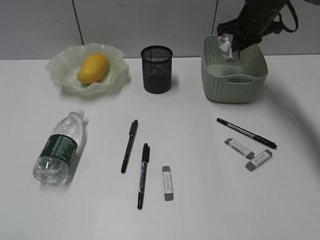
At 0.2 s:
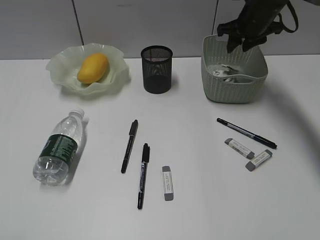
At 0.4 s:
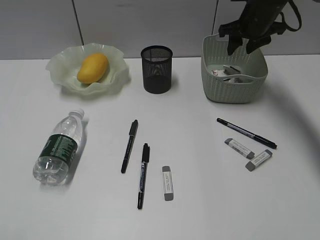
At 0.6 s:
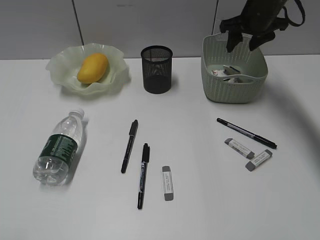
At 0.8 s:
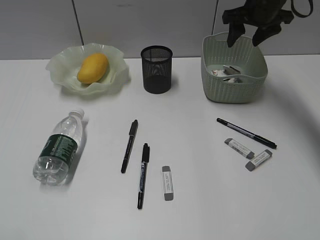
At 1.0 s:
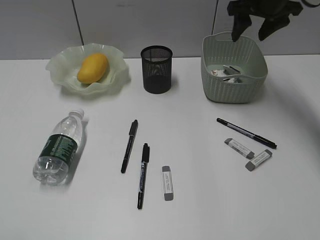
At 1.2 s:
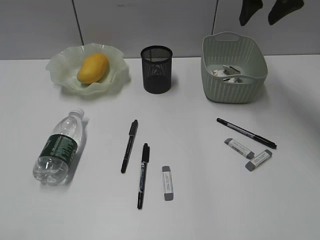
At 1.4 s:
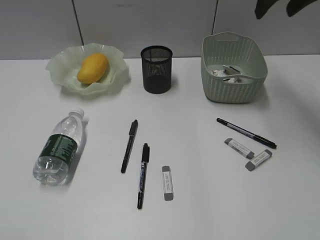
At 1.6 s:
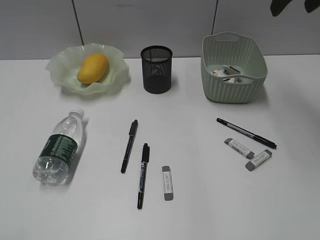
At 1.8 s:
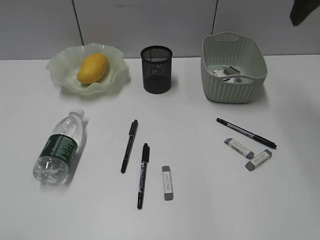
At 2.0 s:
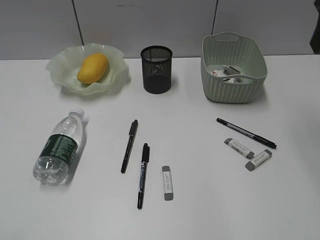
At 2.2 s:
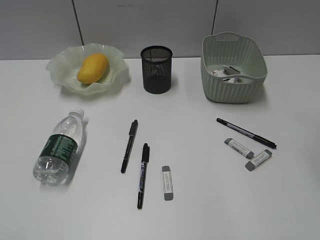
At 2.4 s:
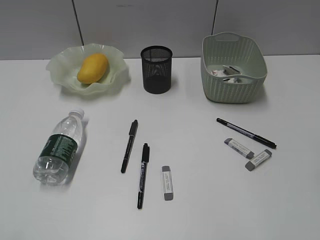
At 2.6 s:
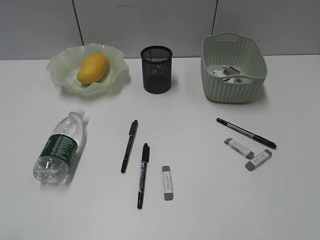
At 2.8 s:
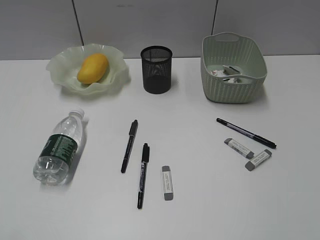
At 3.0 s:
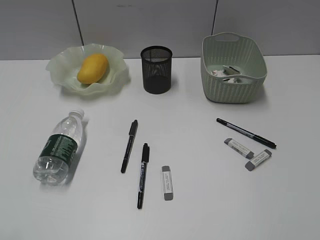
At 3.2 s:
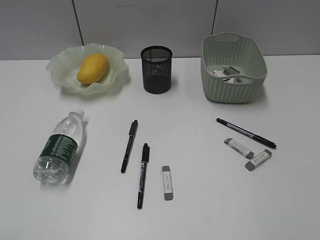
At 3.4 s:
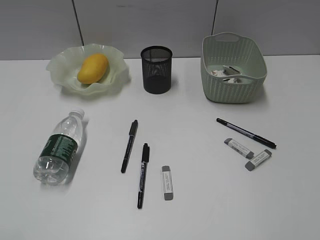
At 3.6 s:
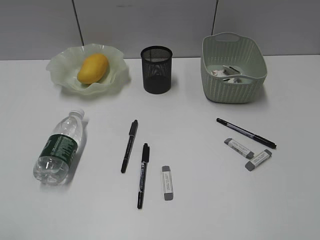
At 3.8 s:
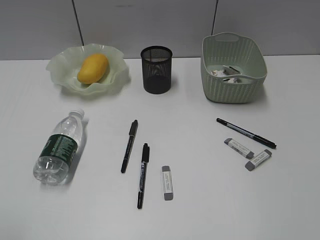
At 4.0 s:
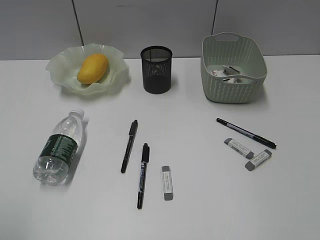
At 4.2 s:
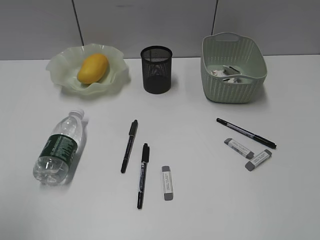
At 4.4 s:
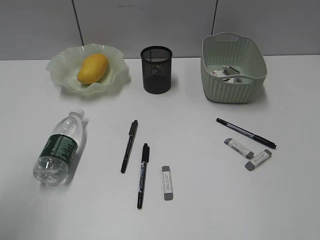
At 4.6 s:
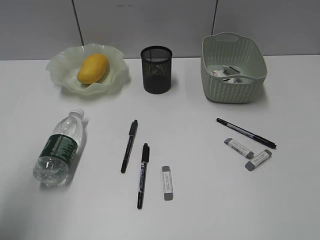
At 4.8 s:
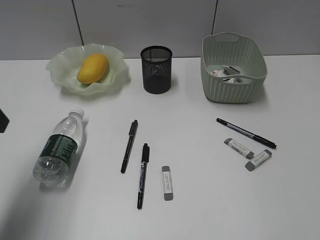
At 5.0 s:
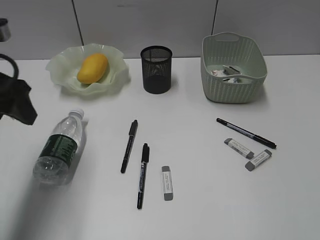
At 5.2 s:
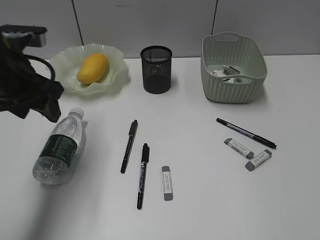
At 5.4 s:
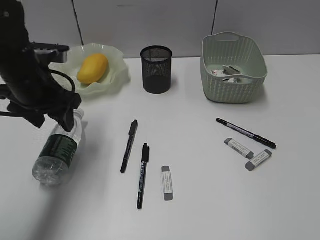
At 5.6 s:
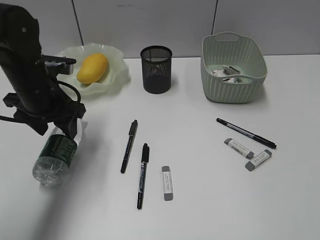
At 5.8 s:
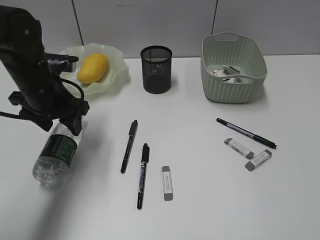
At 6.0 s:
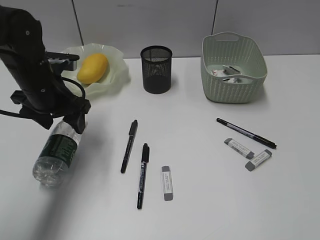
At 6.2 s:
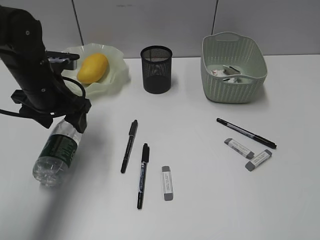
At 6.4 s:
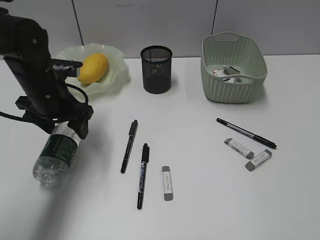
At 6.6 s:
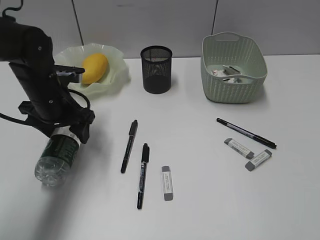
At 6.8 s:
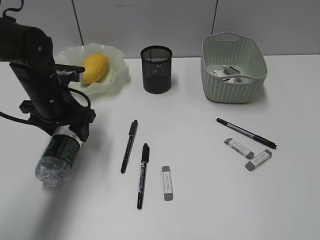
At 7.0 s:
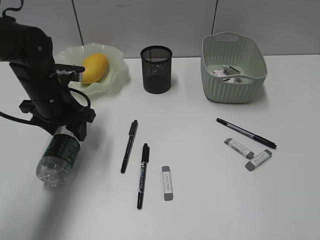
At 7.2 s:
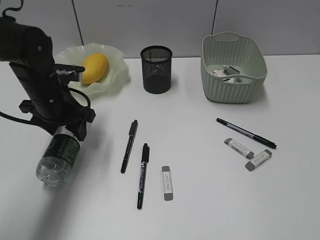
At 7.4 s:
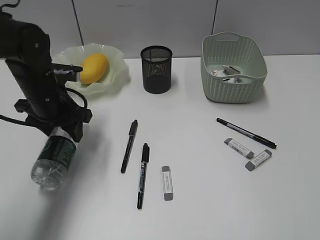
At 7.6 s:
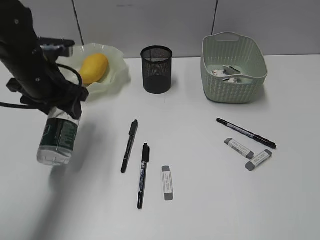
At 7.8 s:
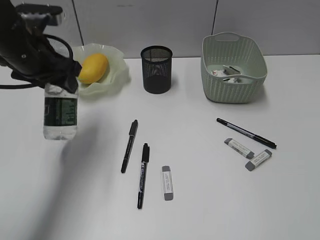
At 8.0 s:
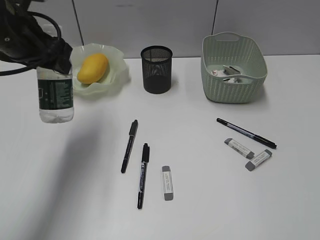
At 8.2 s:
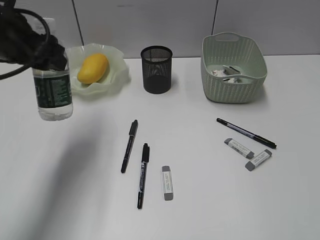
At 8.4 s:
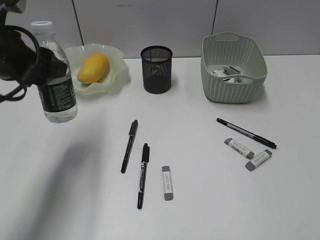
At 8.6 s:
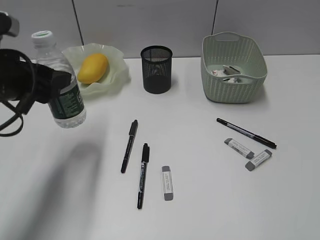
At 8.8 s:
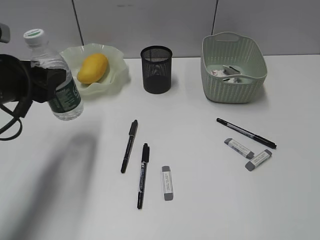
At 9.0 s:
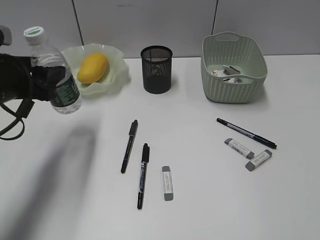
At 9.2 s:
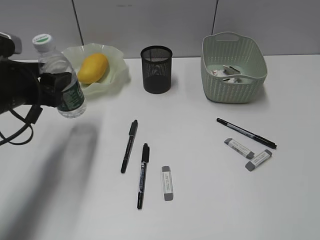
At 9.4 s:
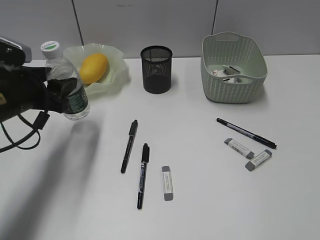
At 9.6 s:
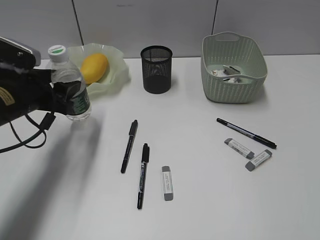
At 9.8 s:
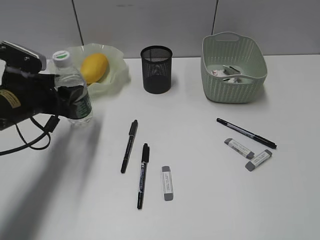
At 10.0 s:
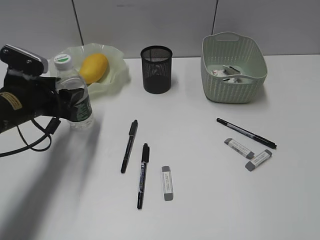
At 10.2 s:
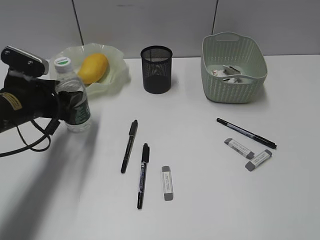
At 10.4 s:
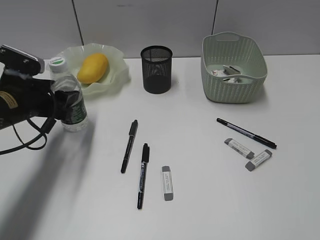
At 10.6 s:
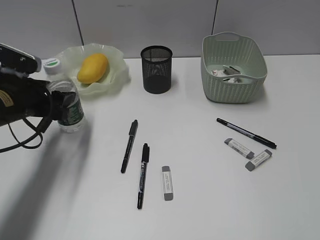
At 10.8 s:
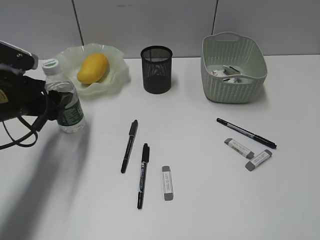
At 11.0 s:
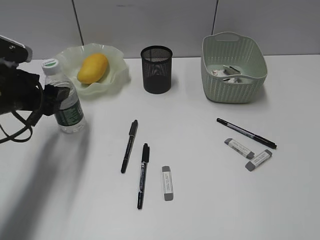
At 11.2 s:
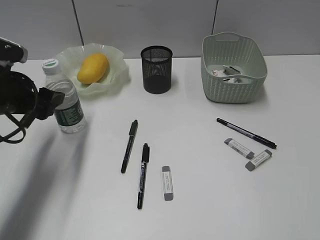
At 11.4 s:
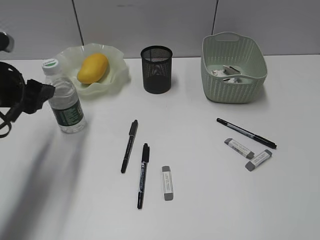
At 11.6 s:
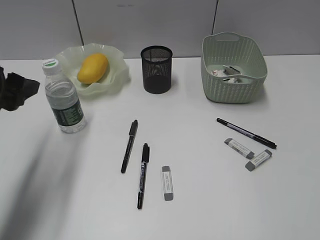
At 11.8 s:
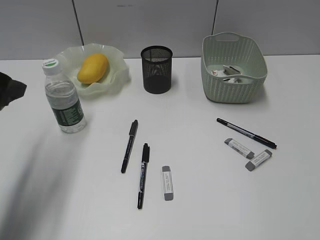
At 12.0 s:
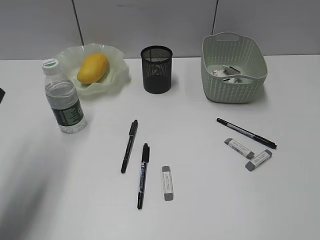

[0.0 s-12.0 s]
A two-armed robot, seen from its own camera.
Step, 0.6 to 7.2 s: Grasp the bottle with left gripper.
Step, 7.4 to 11.4 s: Stand the bottle with left gripper.
0.0 to 1.6 s: The right gripper is displaced upward and backward by approximately 20 cm, and opens up.
1.6 to 3.0 s: The right gripper moves backward, about 30 cm.
3.0 to 4.4 s: The left gripper moves forward, approximately 15 cm, and opens.
4.4 to 6.0 s: The left gripper moves forward, downward and to the right, about 30 cm.
6.0 to 7.6 s: There are only small adjustments of the grippers.
7.6 to 9.0 s: The left gripper goes approximately 5 cm backward, and moves approximately 10 cm upward and comes back.
9.0 to 10.4 s: The left gripper is displaced downward by some 5 cm.
10.4 to 12.0 s: The left gripper is displaced upward and backward by approximately 15 cm.

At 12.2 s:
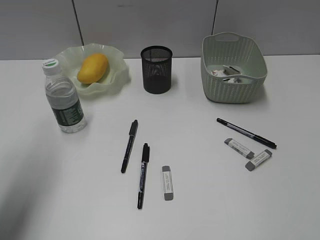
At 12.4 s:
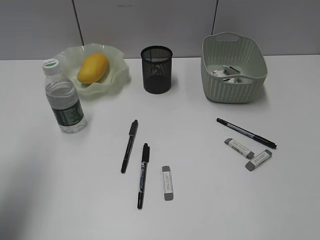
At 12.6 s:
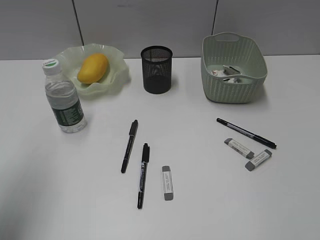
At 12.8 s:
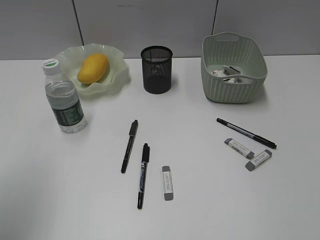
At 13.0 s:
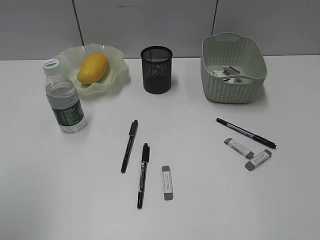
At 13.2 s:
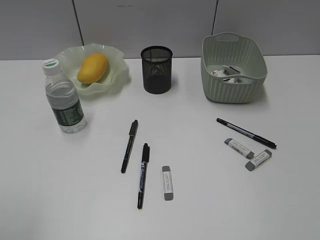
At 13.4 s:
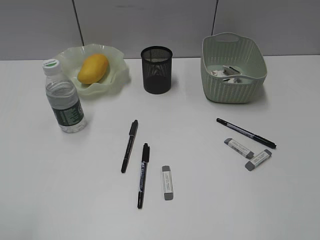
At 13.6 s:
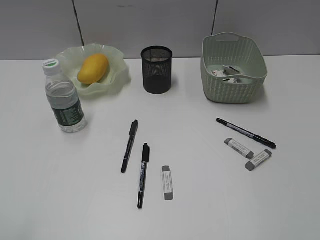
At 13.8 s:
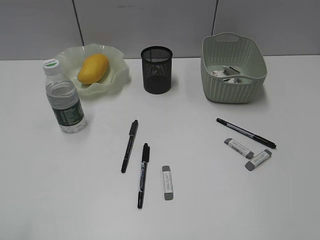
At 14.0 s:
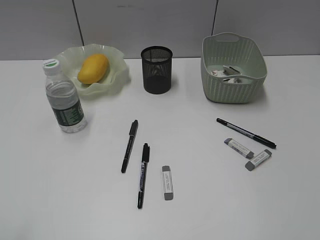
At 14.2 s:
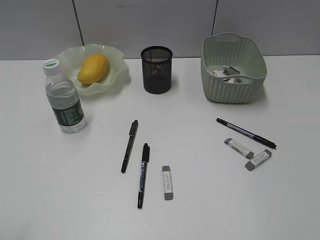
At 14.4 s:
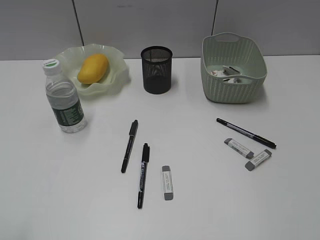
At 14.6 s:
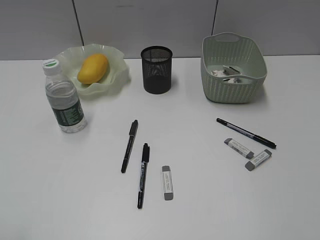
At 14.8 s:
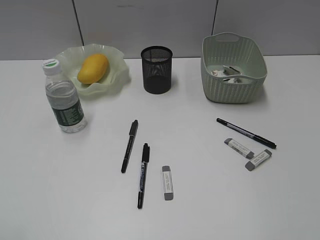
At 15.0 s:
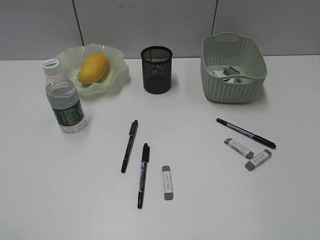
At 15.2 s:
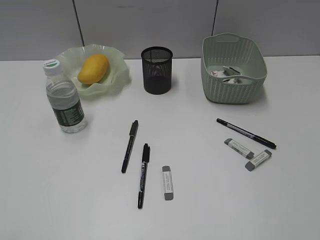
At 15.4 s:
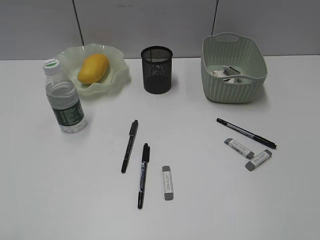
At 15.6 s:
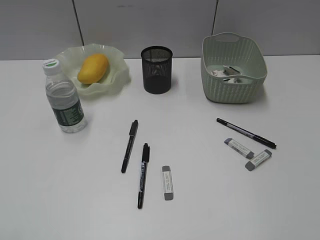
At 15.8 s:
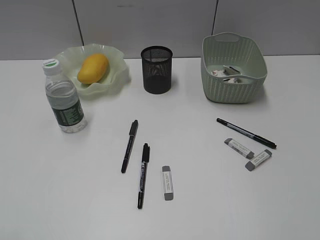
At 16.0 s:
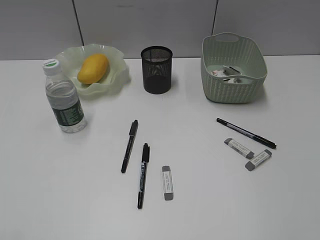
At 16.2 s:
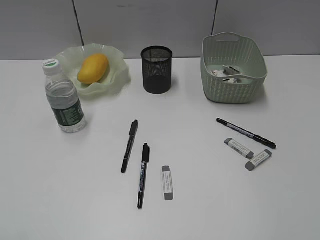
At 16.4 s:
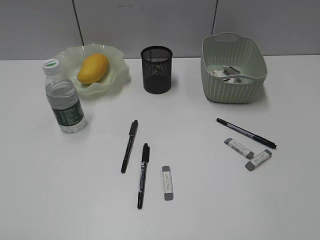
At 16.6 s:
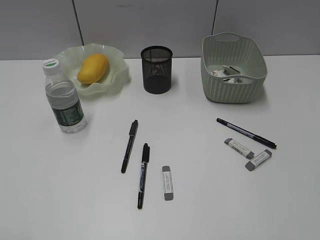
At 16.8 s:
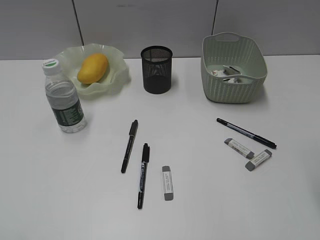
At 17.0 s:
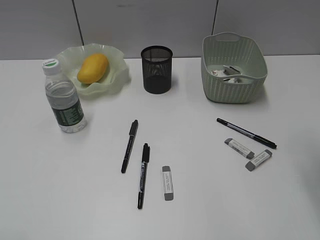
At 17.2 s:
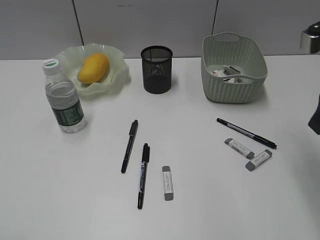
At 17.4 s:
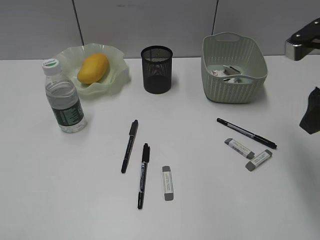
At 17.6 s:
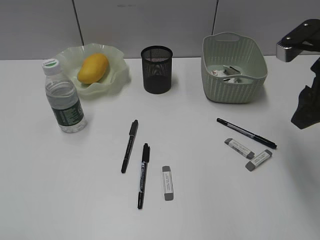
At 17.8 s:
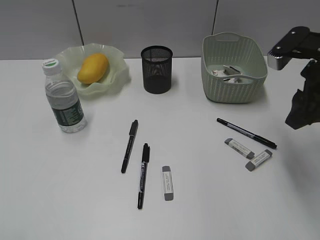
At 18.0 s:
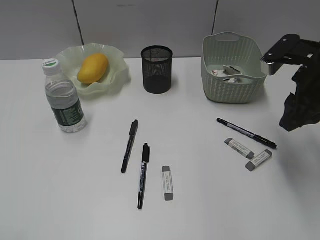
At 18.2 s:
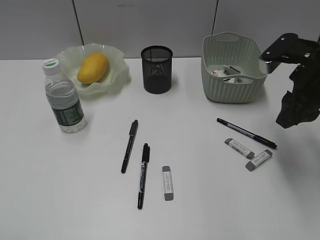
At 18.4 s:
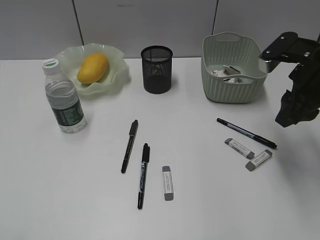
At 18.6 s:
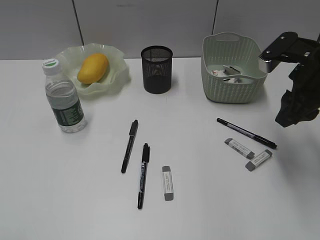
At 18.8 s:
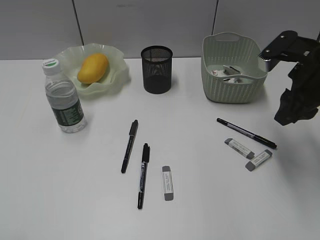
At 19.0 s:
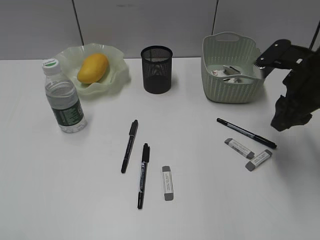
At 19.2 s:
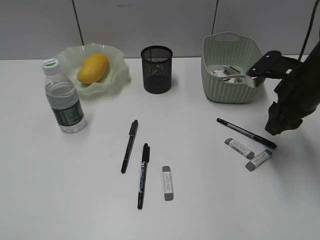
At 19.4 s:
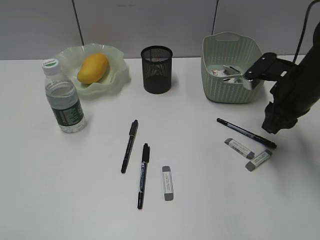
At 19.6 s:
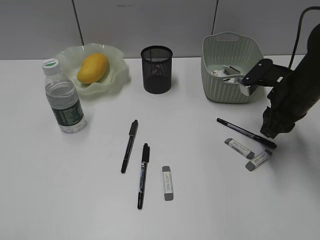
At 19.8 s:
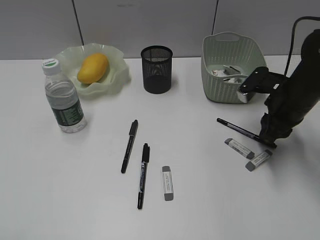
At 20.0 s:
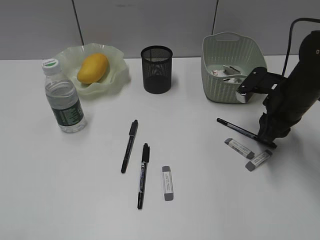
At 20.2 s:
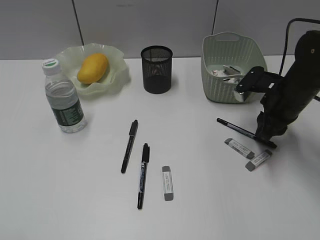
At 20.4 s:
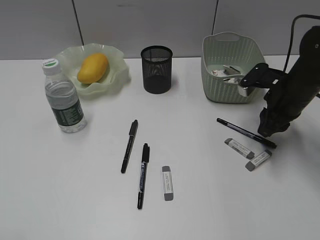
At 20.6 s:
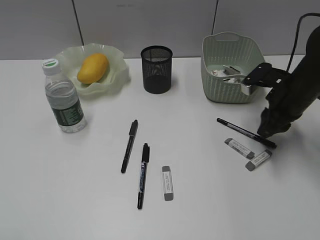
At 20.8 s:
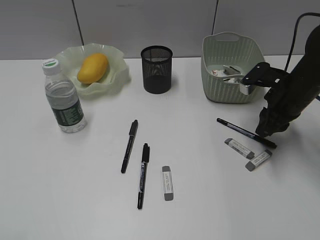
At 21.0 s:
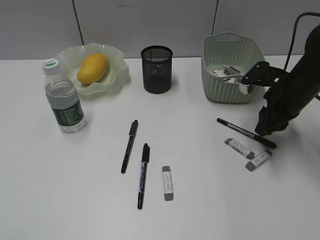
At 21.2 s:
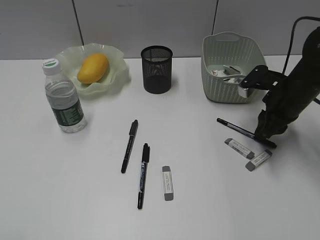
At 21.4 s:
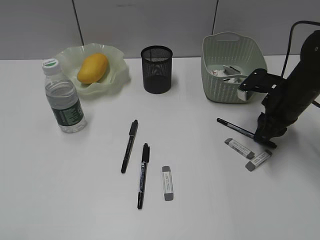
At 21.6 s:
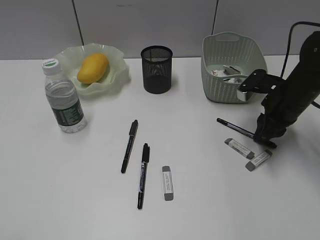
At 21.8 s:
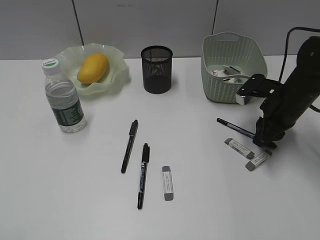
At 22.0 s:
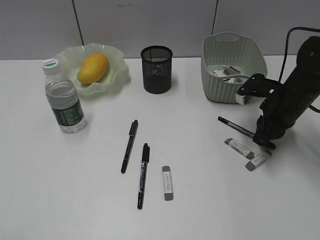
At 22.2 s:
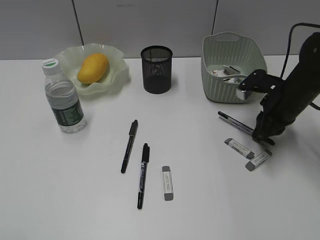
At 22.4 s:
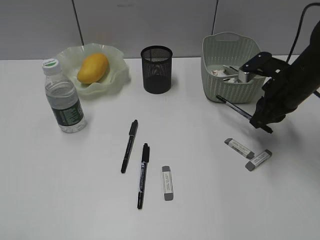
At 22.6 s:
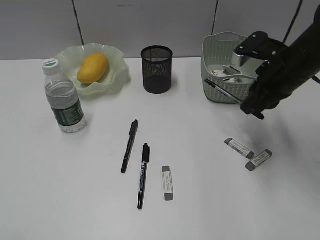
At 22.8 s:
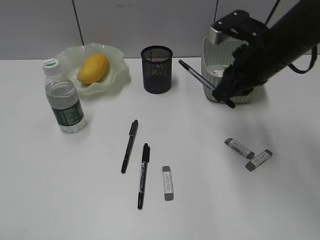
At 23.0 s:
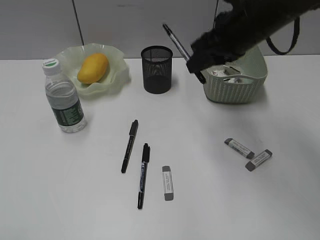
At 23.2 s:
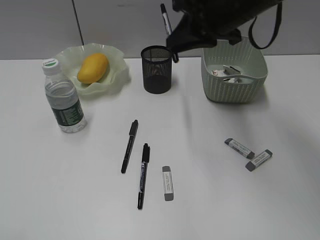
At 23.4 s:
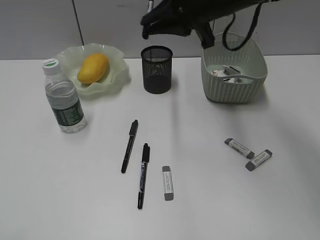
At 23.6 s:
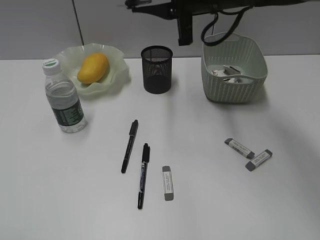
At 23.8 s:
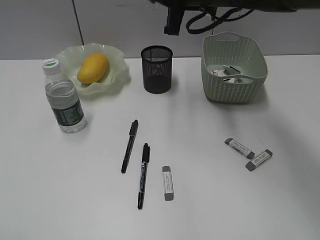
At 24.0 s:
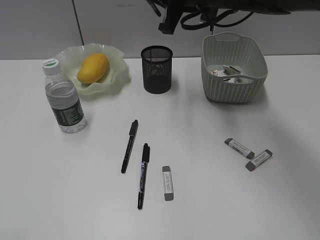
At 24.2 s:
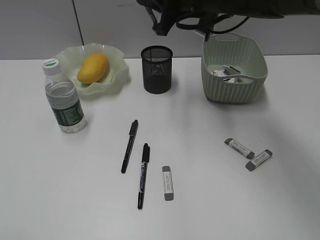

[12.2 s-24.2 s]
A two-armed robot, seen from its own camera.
Step, 12.2 to 22.0 s: Grasp the black pen with right gripper.
12.2 to 13.8 s: The left gripper goes some 20 cm backward.
16.6 to 18.2 s: The right gripper goes about 20 cm forward and downward.
18.2 to 19.8 s: The right gripper moves downward, about 10 cm.
19.8 to 21.2 s: The grippers move only a little.
21.2 to 22.6 s: The right gripper is displaced upward by roughly 5 cm.
22.6 to 24.2 s: The right gripper heads to the left, upward and forward, covering some 15 cm.
